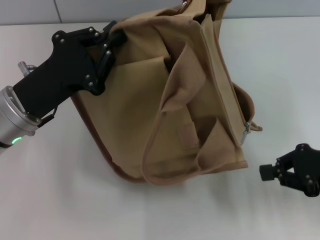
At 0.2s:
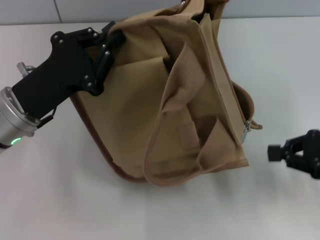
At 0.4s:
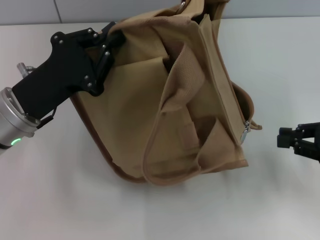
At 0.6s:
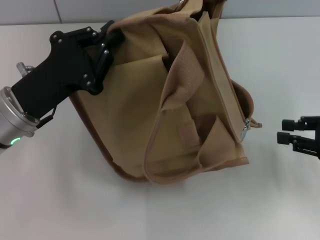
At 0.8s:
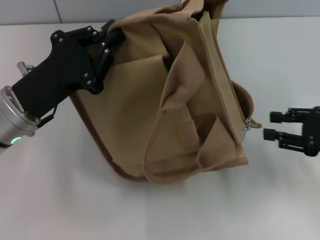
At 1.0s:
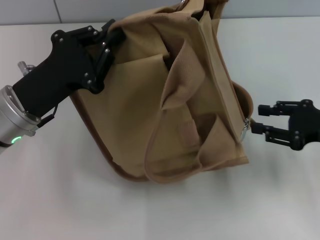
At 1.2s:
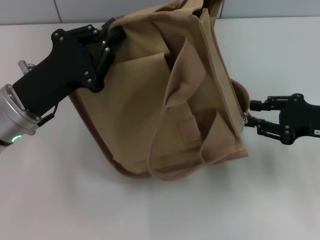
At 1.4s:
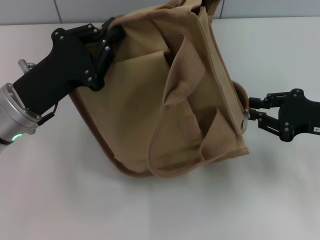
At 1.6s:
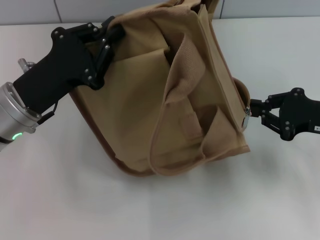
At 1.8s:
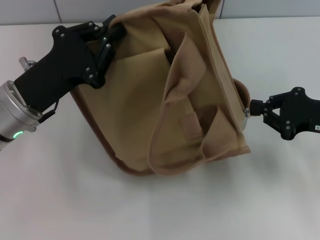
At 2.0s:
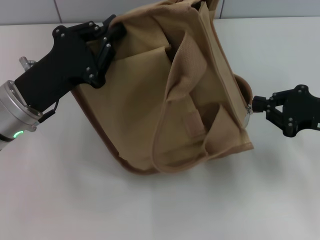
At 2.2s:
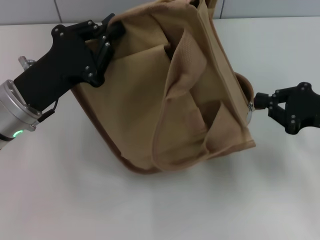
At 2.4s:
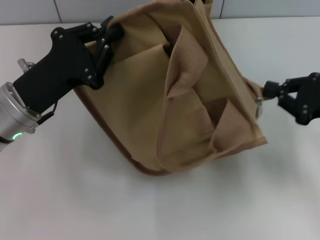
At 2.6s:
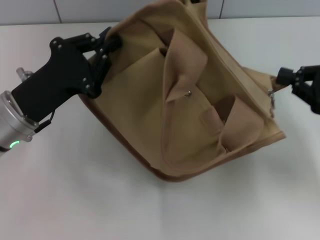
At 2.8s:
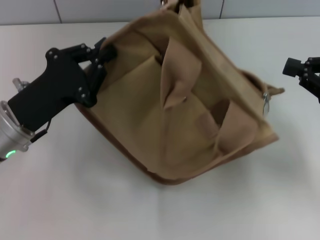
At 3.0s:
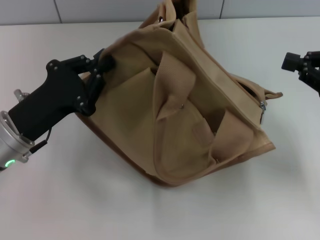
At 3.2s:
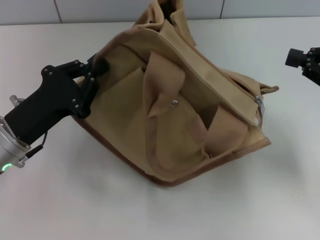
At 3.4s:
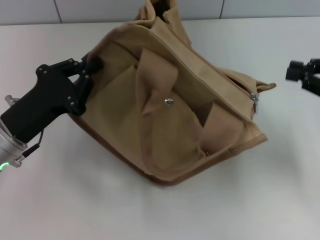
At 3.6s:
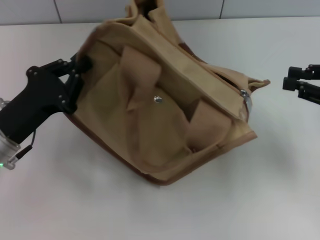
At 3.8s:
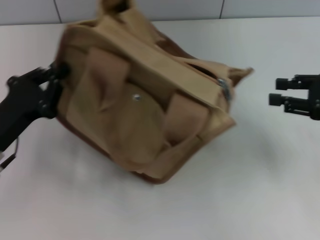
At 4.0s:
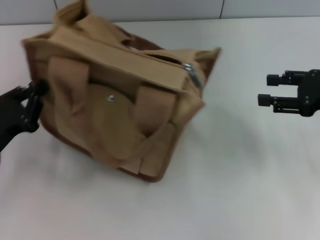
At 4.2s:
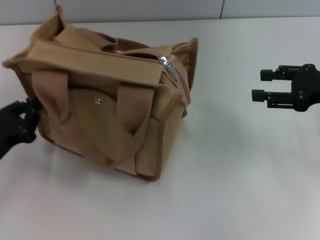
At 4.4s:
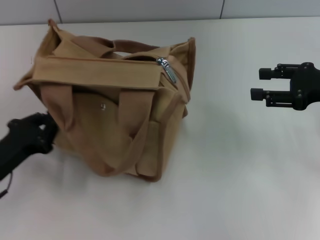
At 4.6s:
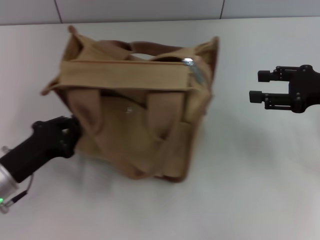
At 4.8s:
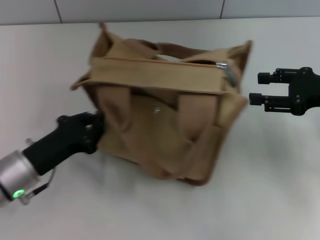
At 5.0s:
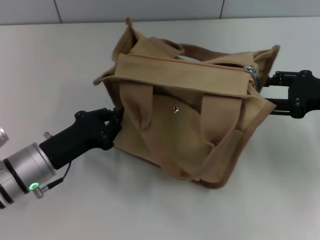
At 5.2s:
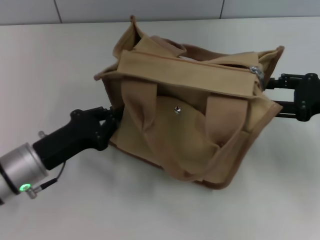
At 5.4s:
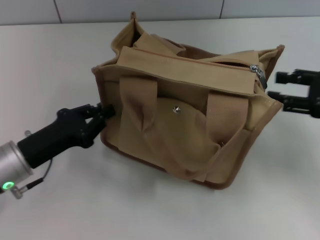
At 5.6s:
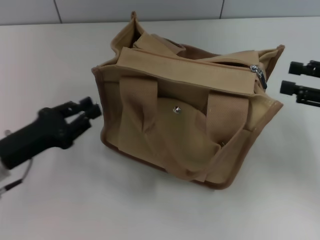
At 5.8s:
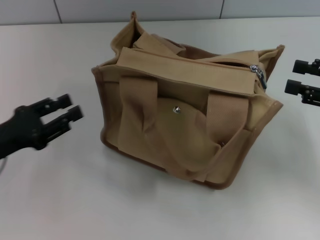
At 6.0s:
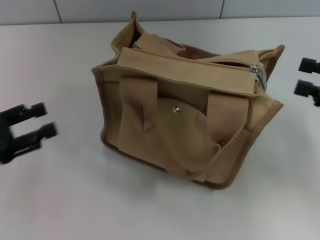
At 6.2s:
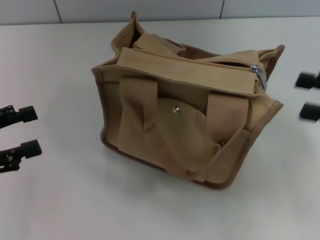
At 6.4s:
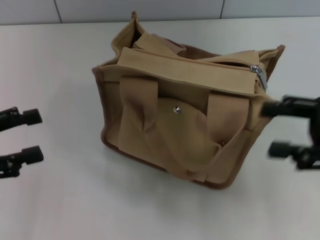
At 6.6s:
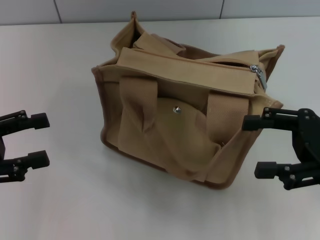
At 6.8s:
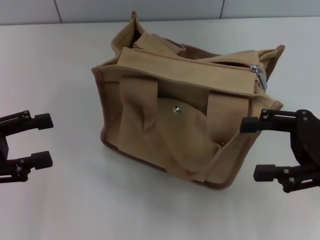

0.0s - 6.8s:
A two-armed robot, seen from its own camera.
Step, 0.0s - 3.6s: Pull open the zipper with your right hand.
Step, 3.8s - 5.4s: Grab the bag with your left hand.
0.0s - 1.4s: The right gripper opens up.
1.4s - 2.8s: The right gripper changes place by approximately 5 cm, and closes up.
2.8s - 4.0s: The right gripper opens. The left gripper moves to the left, some 5 cm.
5.4s - 6.8s: The right gripper is displaced to the left and backward by approximately 10 cm. The left gripper shifts about 15 cm to the left and upward, and opens its fingers.
